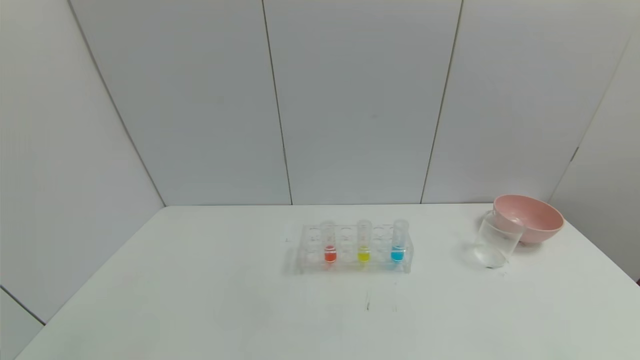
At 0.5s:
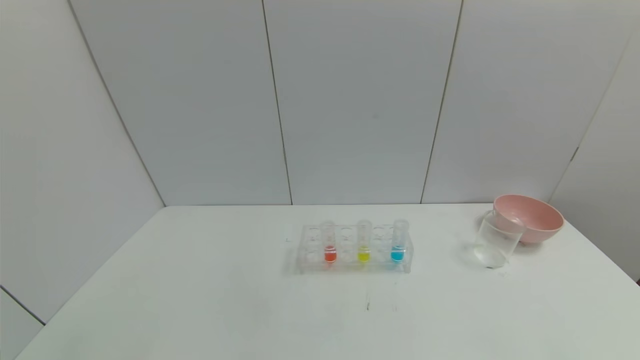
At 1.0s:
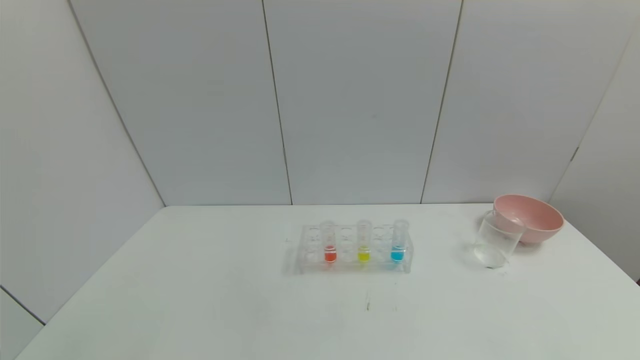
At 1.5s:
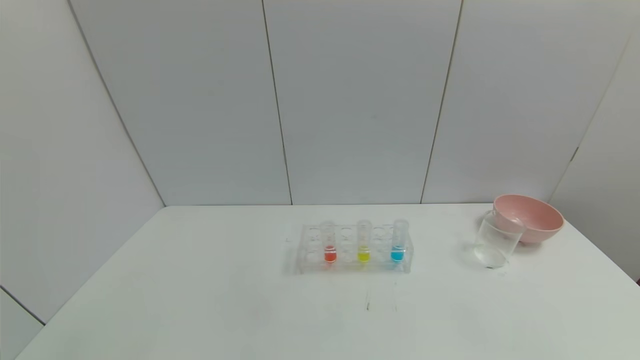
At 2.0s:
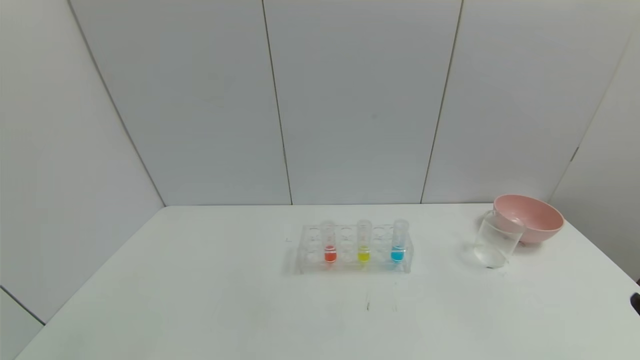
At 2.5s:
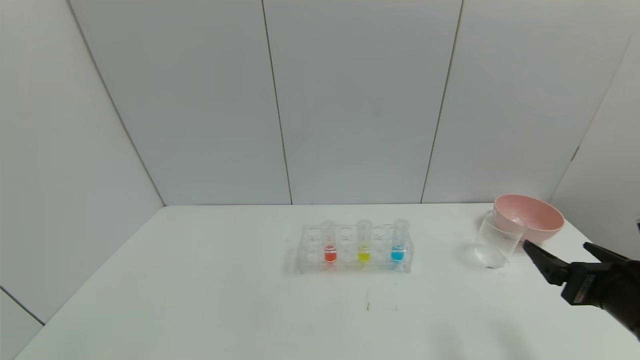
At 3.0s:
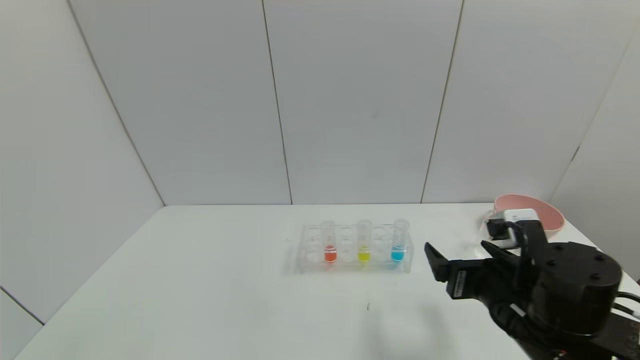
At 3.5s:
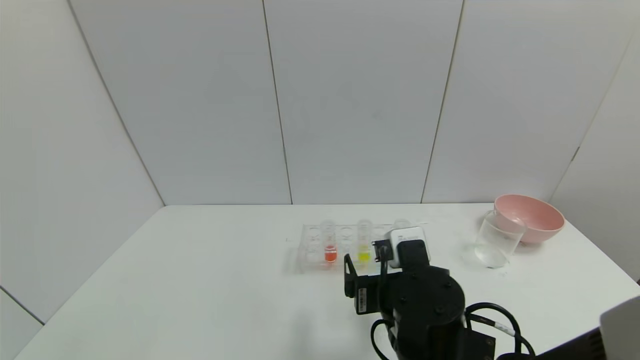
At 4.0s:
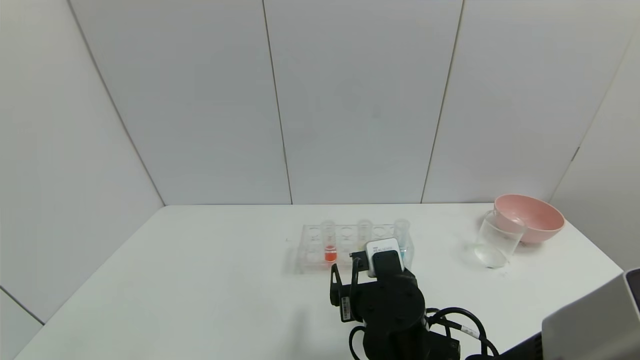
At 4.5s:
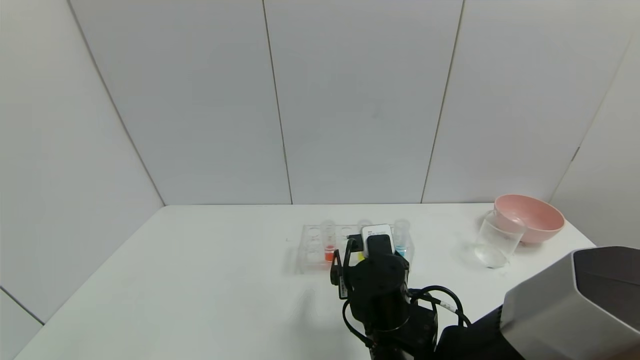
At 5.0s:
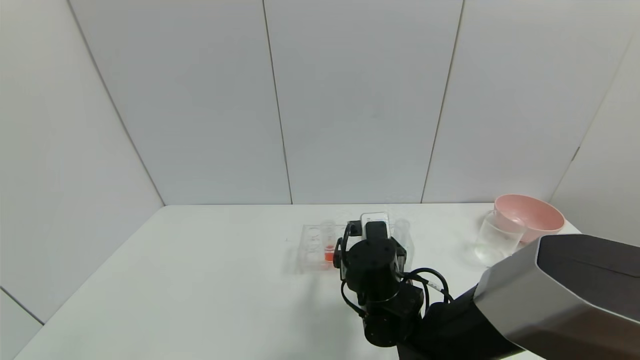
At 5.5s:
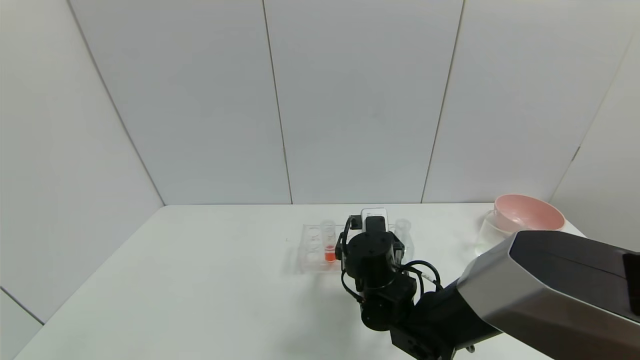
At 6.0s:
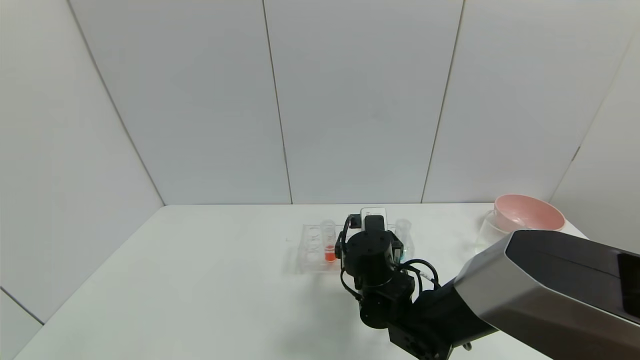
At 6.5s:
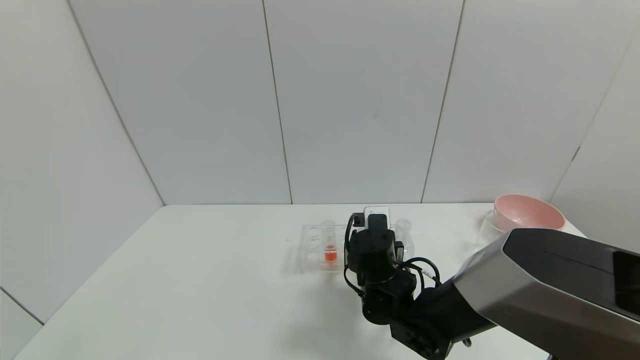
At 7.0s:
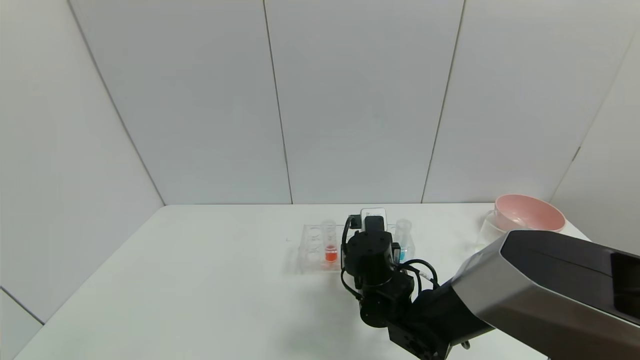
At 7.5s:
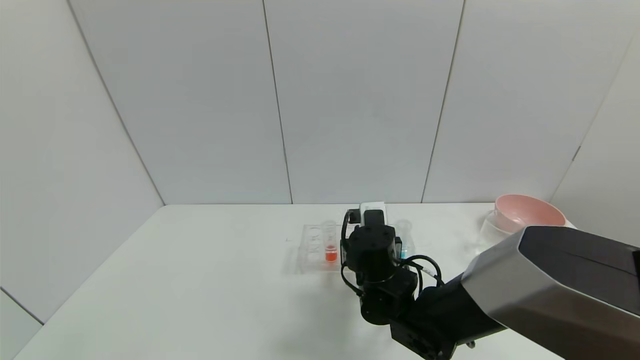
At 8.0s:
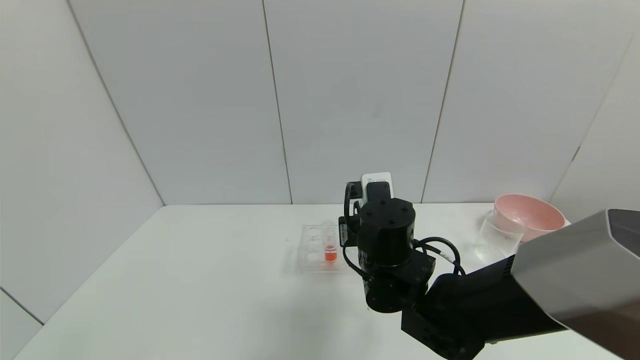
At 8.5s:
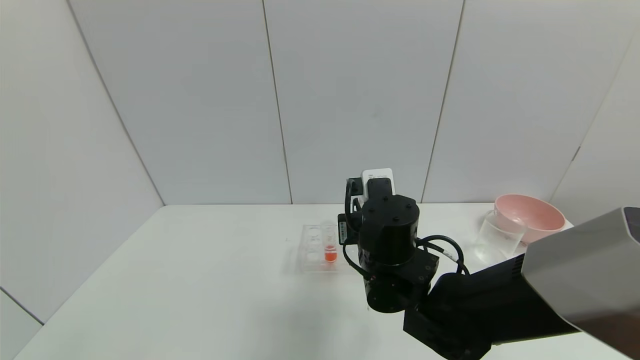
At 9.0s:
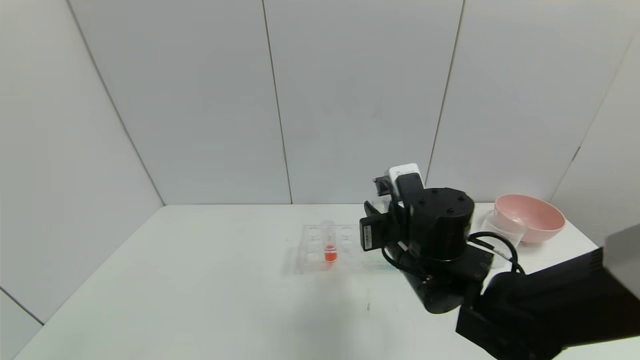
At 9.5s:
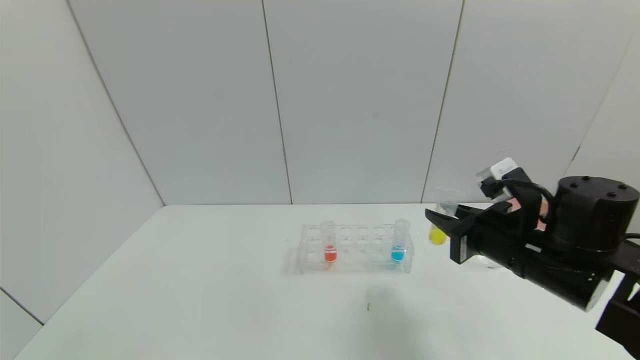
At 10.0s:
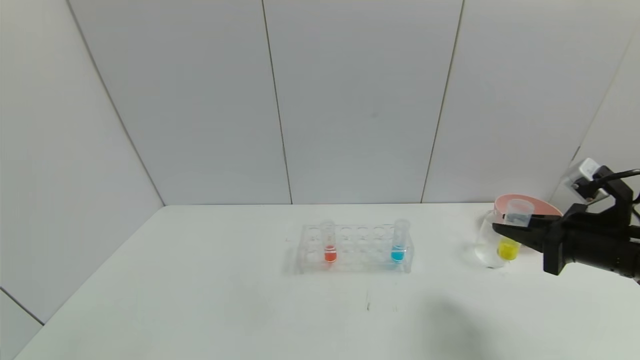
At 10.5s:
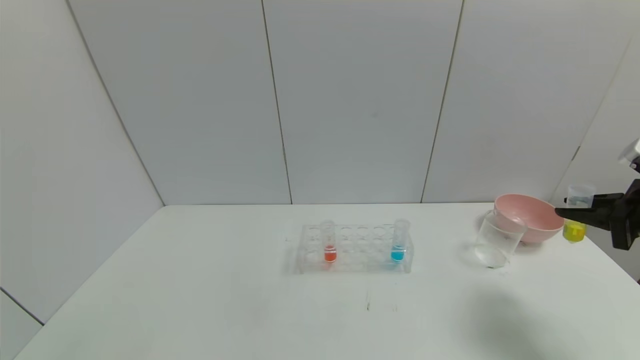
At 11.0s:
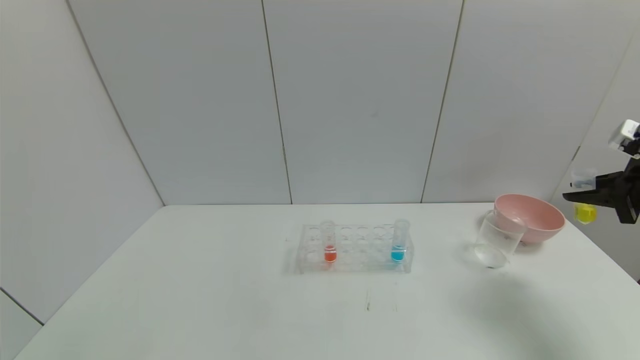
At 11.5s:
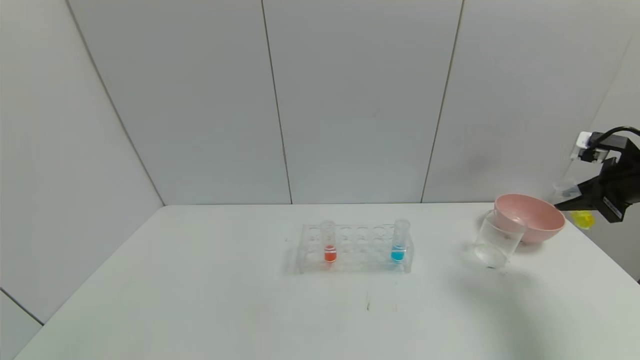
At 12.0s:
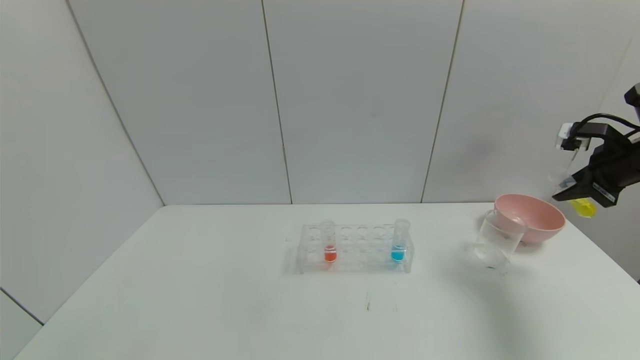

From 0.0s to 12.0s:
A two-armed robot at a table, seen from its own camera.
Task of the whole recording: pick up the test tube with yellow pigment and the test tube with blue pigment by grippers and pour them into the beaker.
Step, from 0.0s to 7.0s: Grasp the yellow reagent with the right gripper.
From 2.0s to 4.0s: The right gripper heads to the left and forward, covering about 35 cm.
From 4.0s to 6.0s: The right gripper moves forward, approximately 10 cm.
From 6.0s to 8.0s: The right gripper goes roughly 5 cm upward, and closes its fingers.
From 8.0s to 10.0s: The right gripper moves to the right, about 30 cm.
From 10.0s to 12.0s: The right gripper heads forward, to the right and upward, covering approximately 15 cm.

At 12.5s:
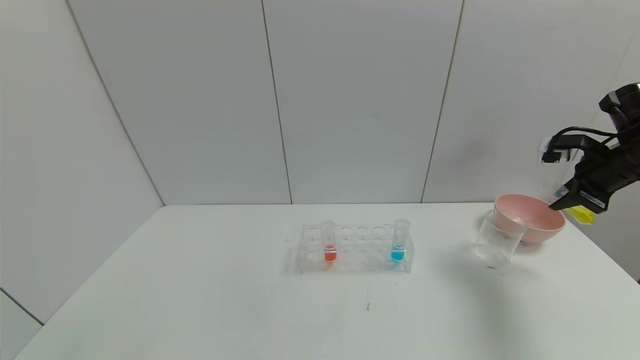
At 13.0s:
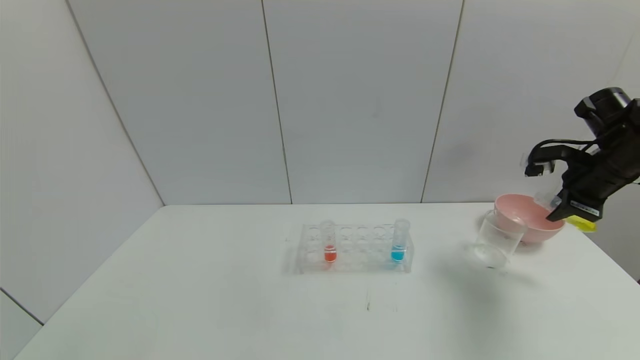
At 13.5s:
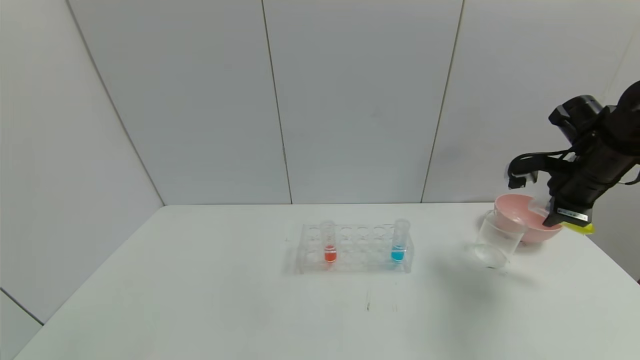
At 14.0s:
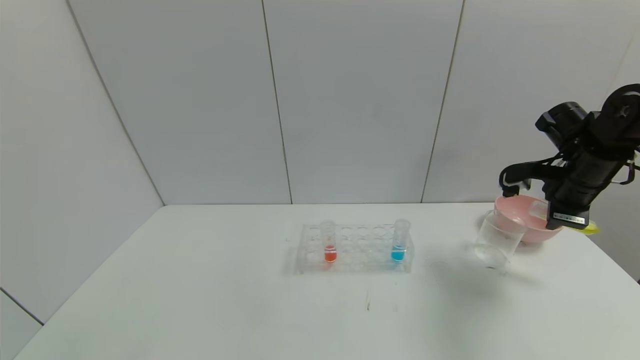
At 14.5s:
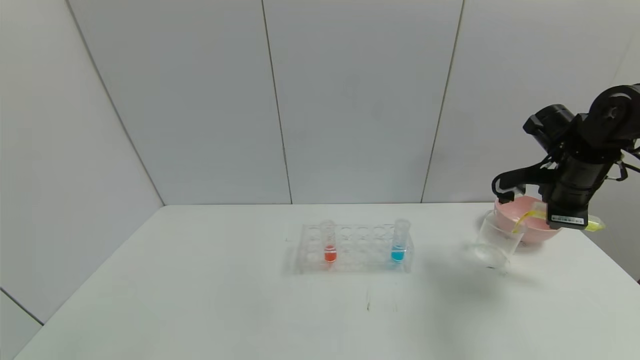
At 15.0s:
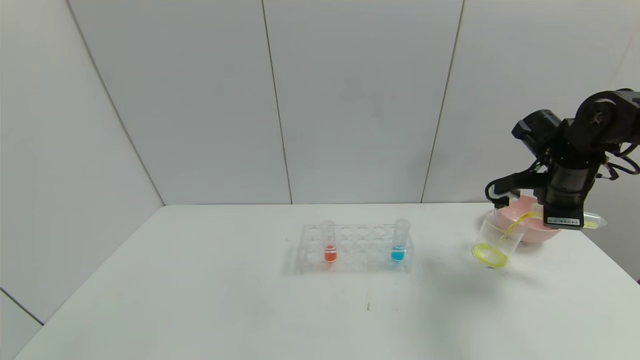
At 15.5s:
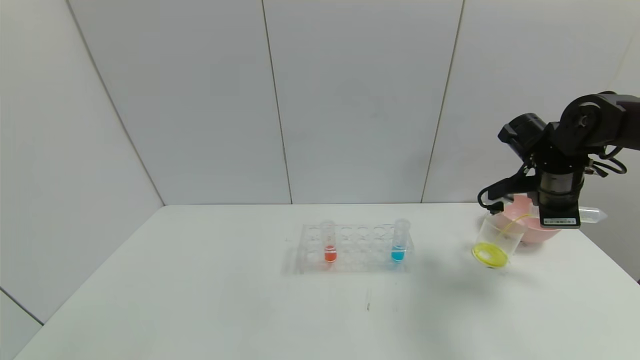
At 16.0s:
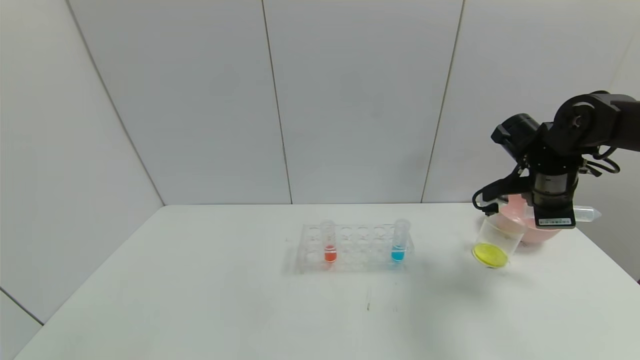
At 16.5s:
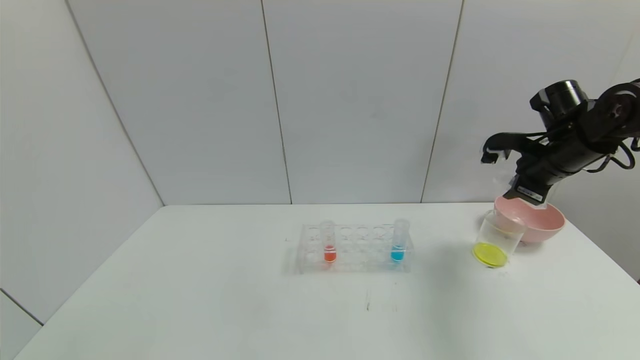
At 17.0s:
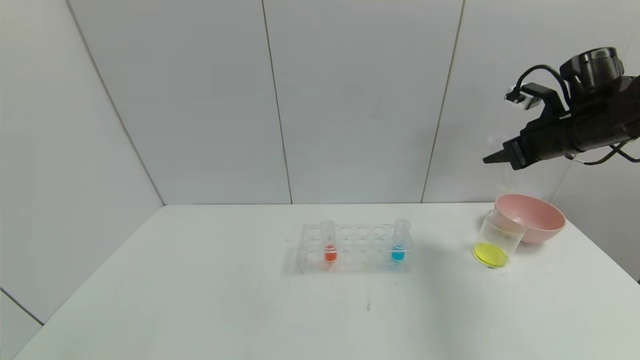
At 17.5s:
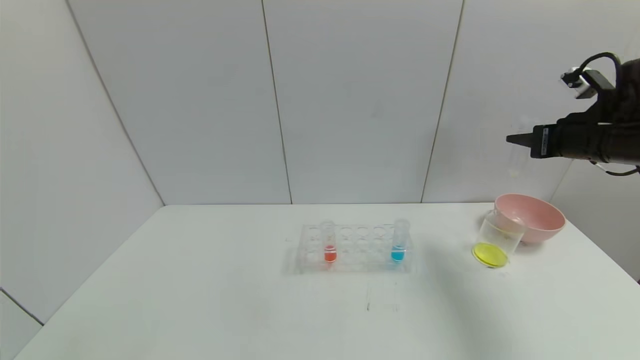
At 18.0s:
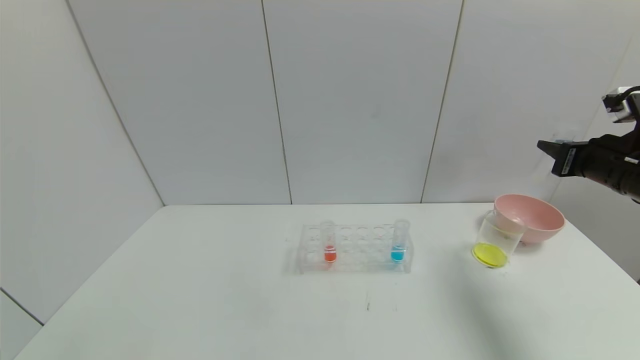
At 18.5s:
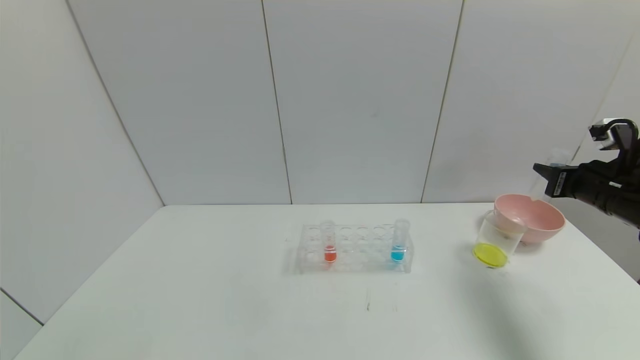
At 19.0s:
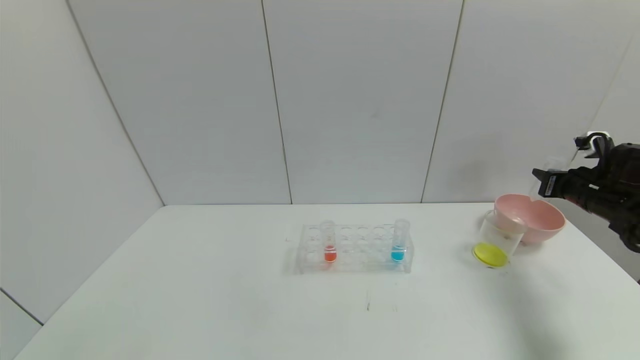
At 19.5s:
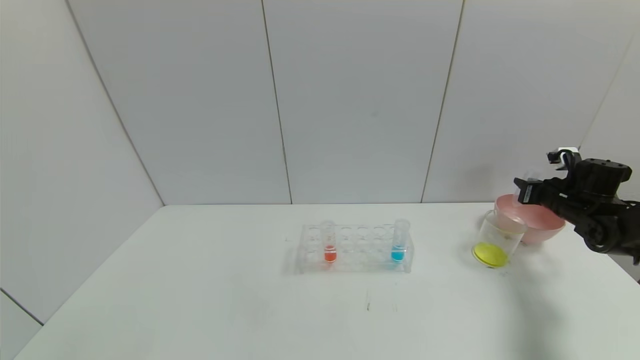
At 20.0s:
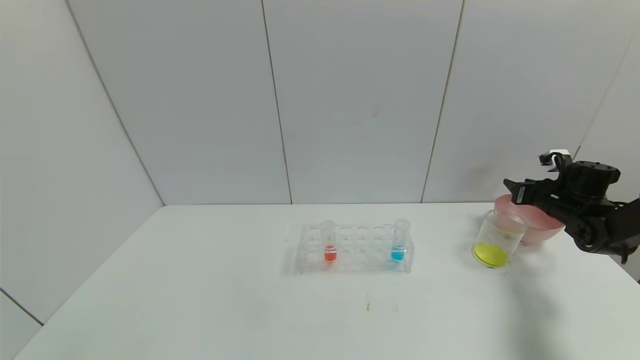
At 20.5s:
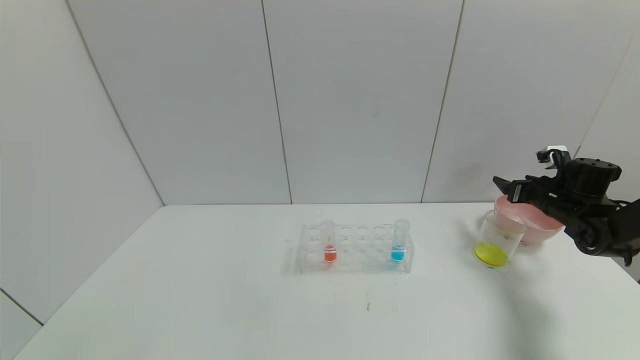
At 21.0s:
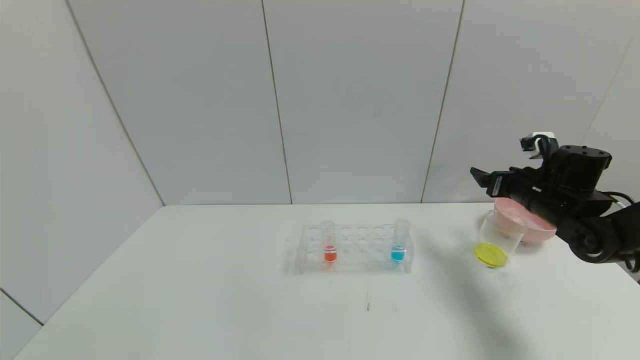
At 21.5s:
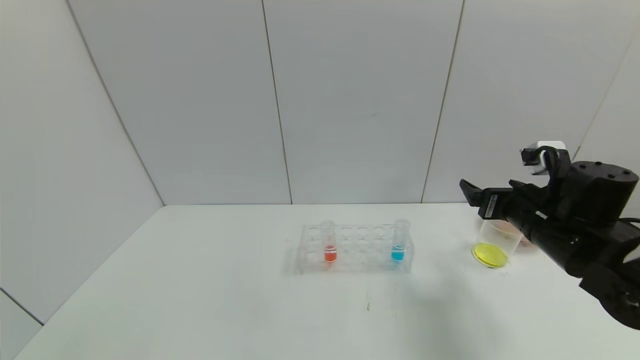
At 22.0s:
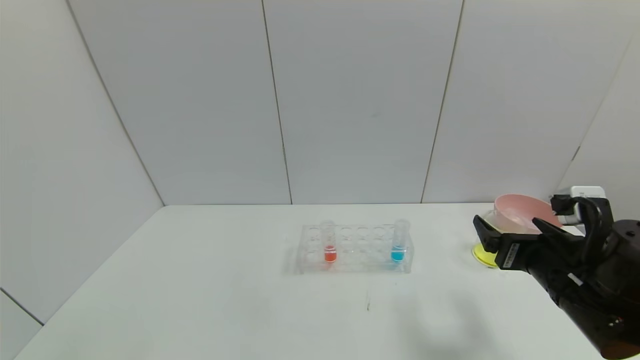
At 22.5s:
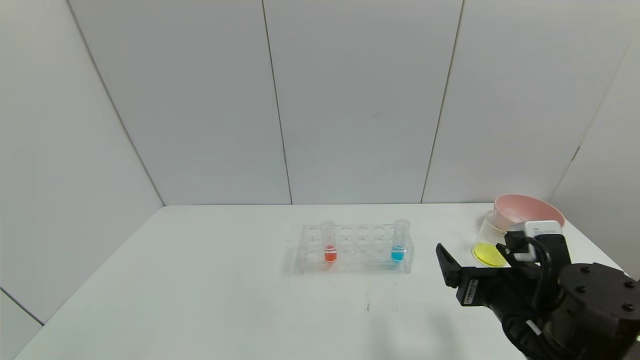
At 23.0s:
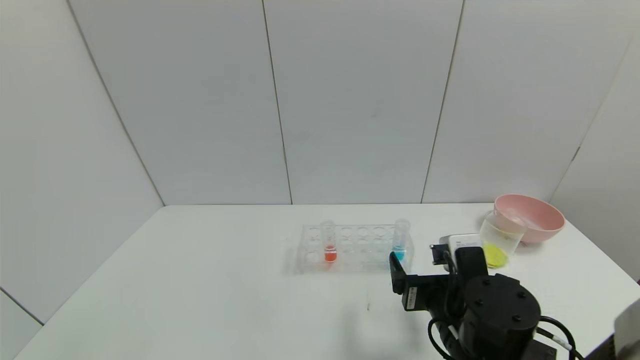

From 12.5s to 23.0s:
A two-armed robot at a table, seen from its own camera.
Task of the whole recording: pick up the test tube with yellow pigment and the test tube with blue pigment by grippers and pour them into the beaker.
Step, from 12.5s to 16.0s: Pour the yellow reagent into the graduated cylinder with the right gripper.
Step, from 16.5s to 20.0s: Place the test tube into the bowl with the right gripper.
From 12.5s to 14.5s: The right gripper shifts roughly 5 cm to the left.
From 16.5s to 19.0s: The right gripper goes some 15 cm to the right and downward.
From 19.0s to 21.0s: The right gripper heads to the left, covering approximately 10 cm, and opens up.
From 21.0s to 23.0s: The right gripper moves to the left and backward, roughly 30 cm.
